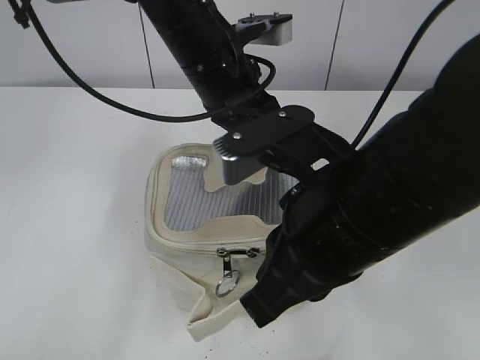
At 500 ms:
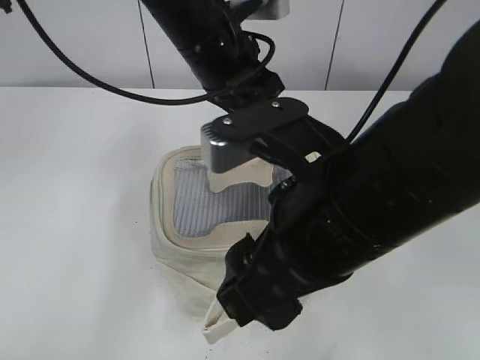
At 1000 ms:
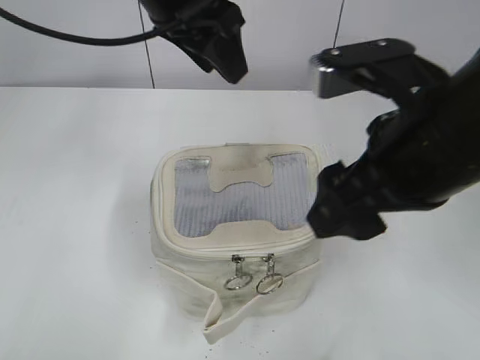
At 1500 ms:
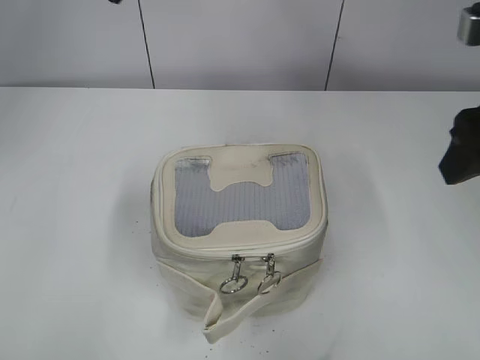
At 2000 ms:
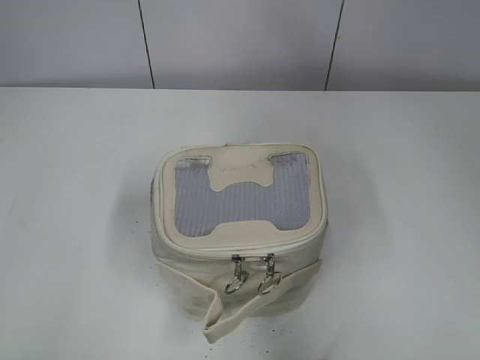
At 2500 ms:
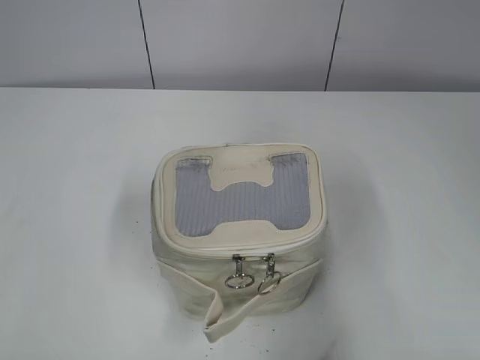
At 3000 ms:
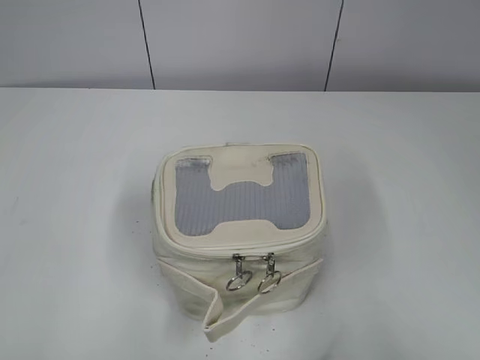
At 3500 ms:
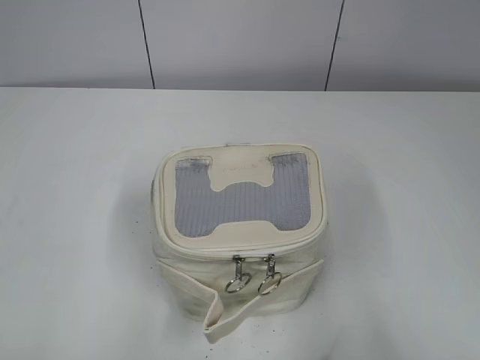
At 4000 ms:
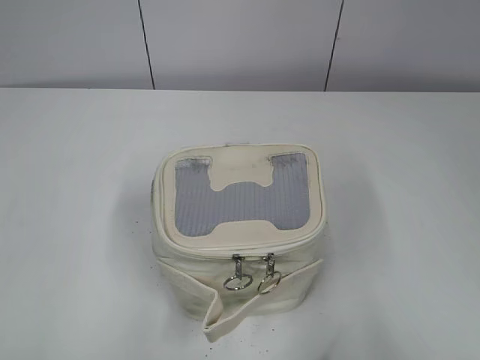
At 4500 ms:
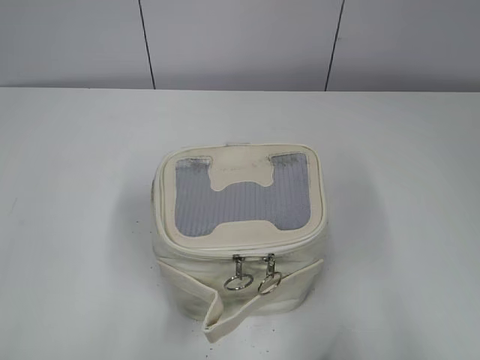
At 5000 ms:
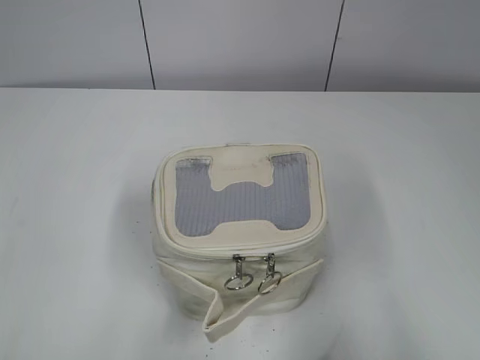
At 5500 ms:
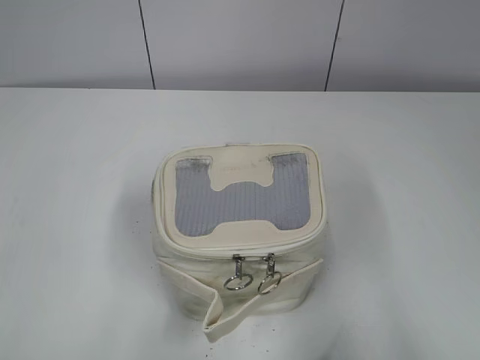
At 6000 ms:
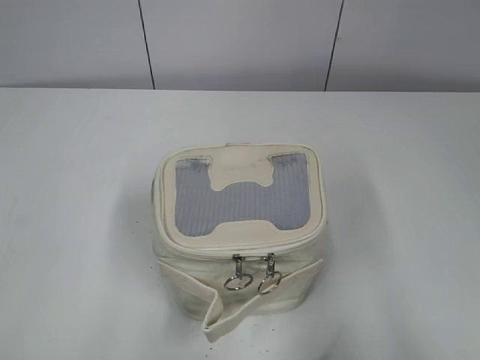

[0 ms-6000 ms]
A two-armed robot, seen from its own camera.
0 ms to 2000 ms: The left gripper travels to the left, upward and backward by approximately 30 cm, and opens up. The right gripper is displaced to the right and upward by approximately 20 cm, and opens.
2000 ms to 4000 ms: The left gripper heads backward and downward, covering some 30 cm, while the right gripper goes about 20 cm backward.
